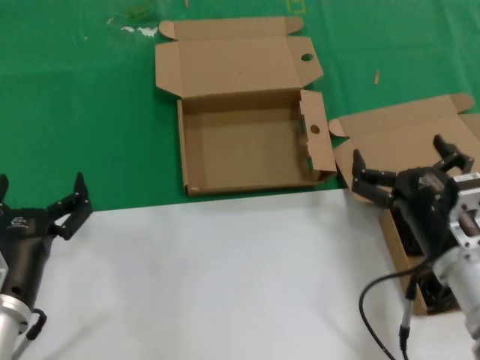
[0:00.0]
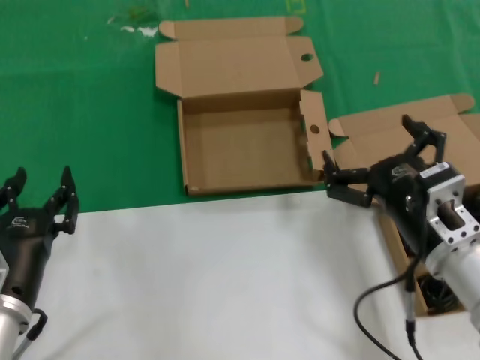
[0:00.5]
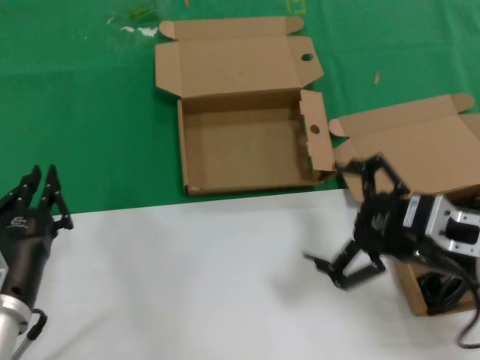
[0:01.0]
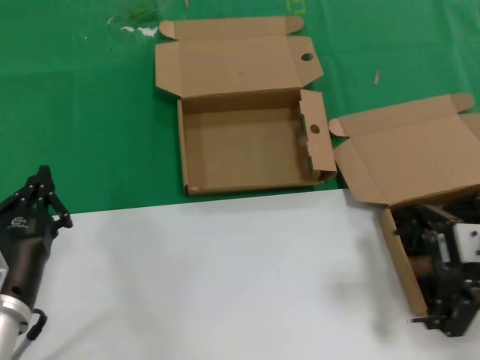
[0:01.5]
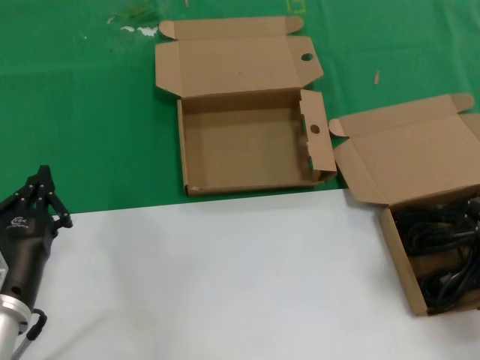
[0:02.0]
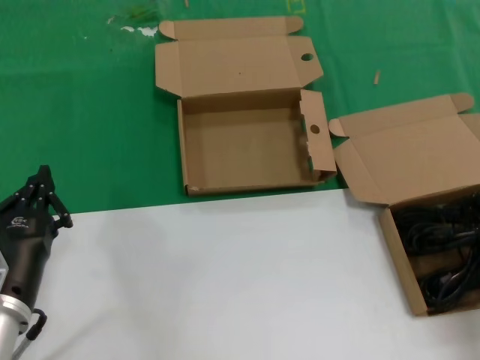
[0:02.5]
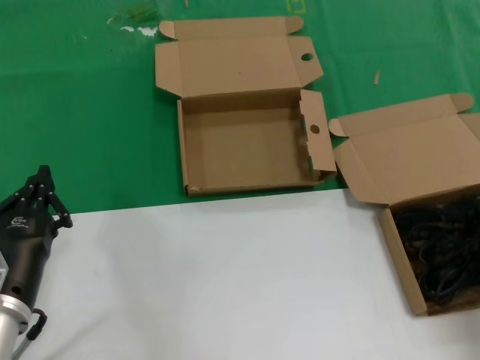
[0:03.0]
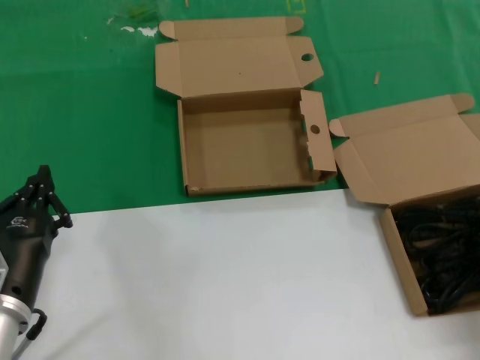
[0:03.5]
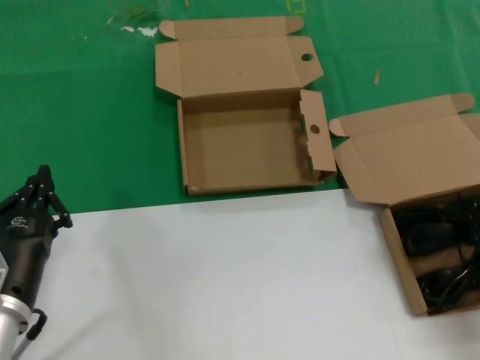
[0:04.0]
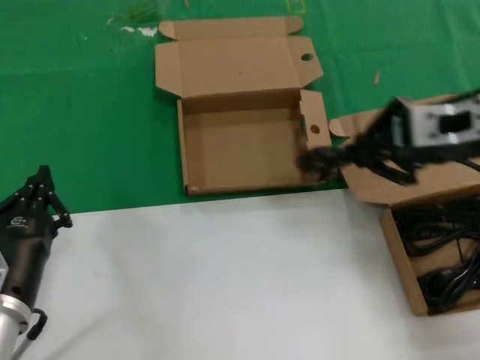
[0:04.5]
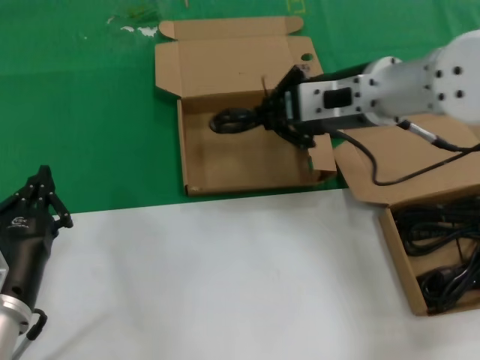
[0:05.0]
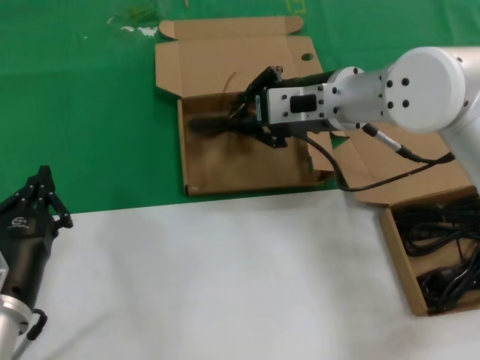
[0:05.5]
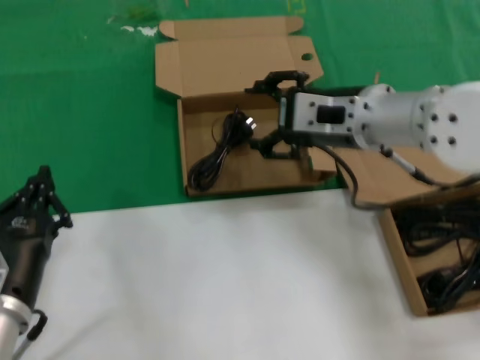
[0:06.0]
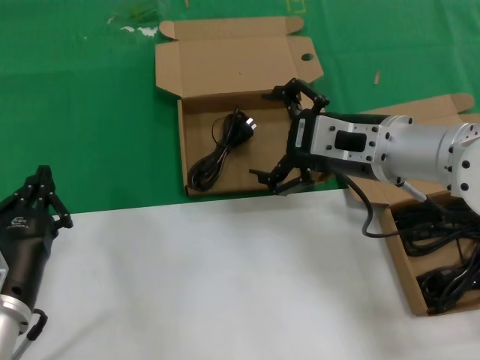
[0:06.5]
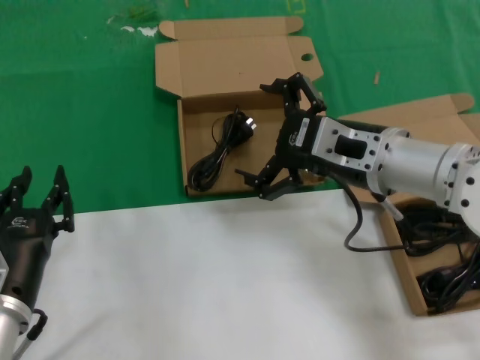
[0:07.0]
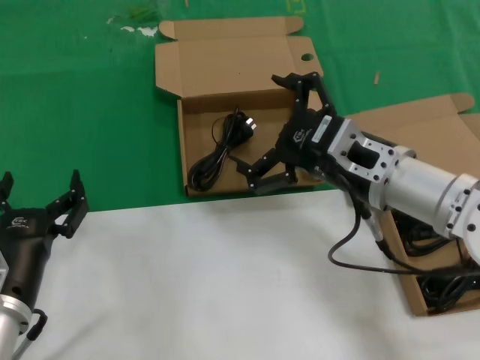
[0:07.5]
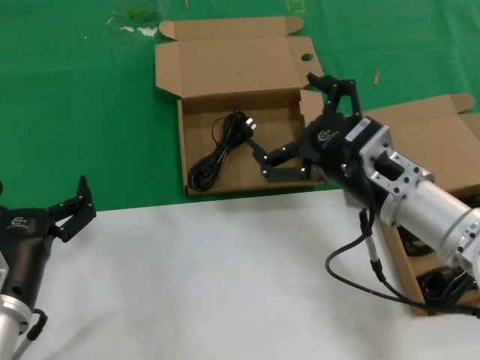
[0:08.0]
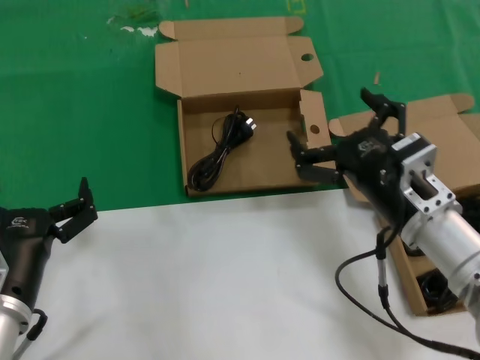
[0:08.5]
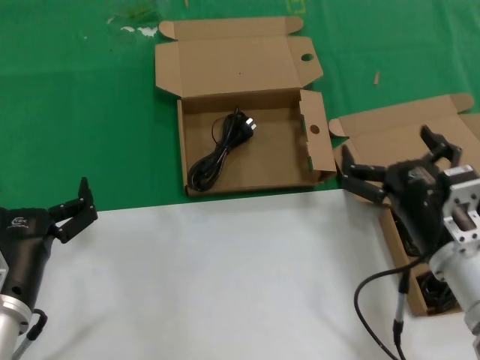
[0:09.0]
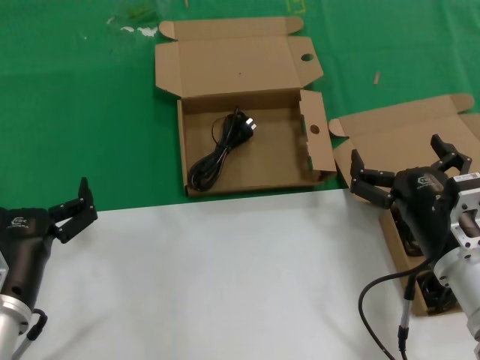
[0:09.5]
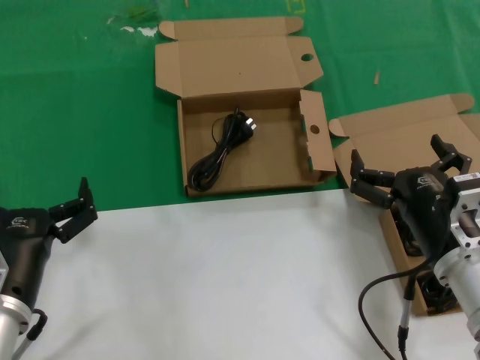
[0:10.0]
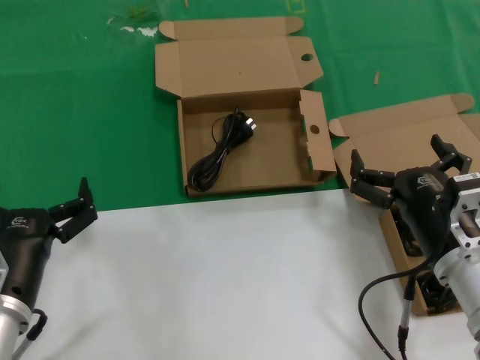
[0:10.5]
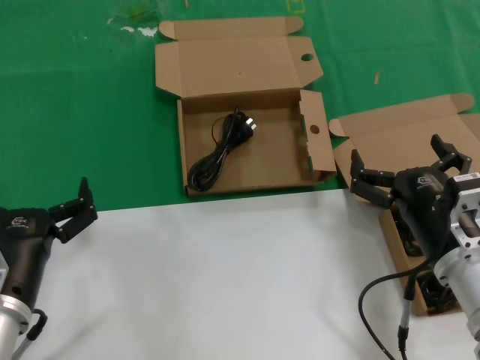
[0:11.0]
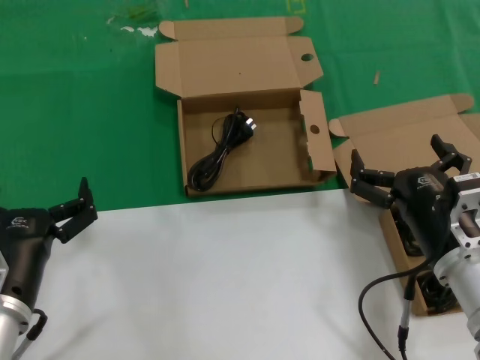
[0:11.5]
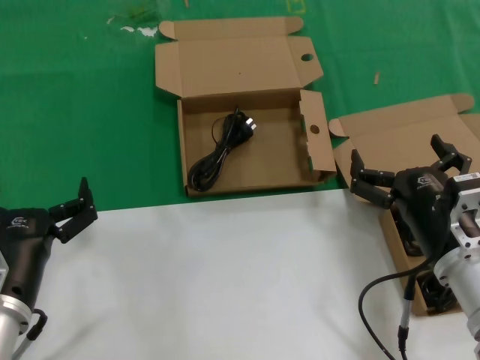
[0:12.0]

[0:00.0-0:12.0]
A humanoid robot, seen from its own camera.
Task of the whole recording: take the parts from the box containing them and put them into an empty box.
Step, 0:00.0 to 0:03.0: Grasp the data cable.
Step, 0:03.5 to 0:06.0: Place the data cable in the another box.
0:00.0 to 0:02.0: The right hand moves upward and to the right, roughly 20 cm.
0:04.0 to 0:06.0: The right hand moves to the left, about 20 cm.
0:06.0 to 0:08.0: The right hand is displaced downward and backward by roughly 10 cm.
0:08.0 to 0:10.0: The right hand shifts about 10 cm downward and backward.
0:10.0 to 0:12.0: Both hands stay about where they are.

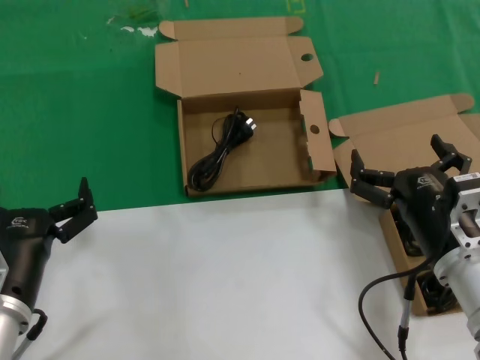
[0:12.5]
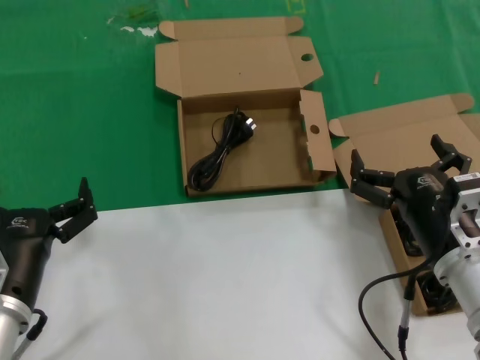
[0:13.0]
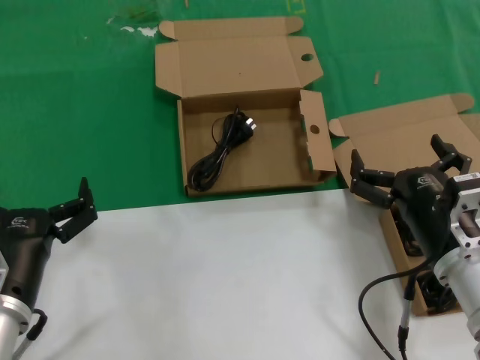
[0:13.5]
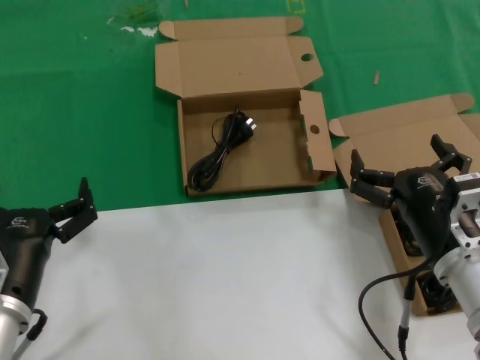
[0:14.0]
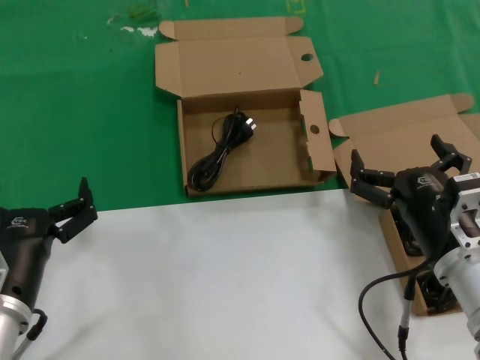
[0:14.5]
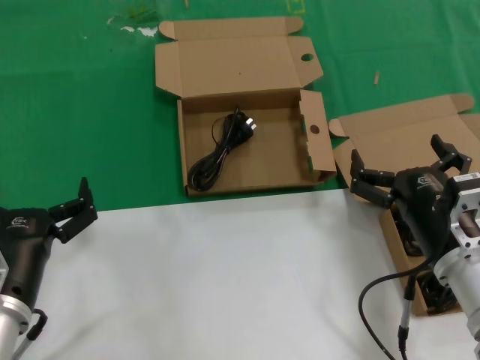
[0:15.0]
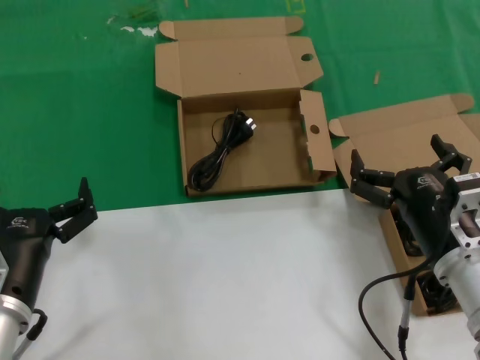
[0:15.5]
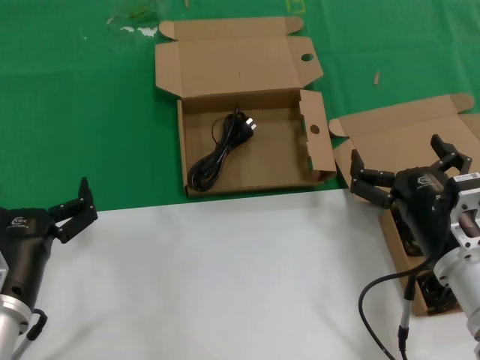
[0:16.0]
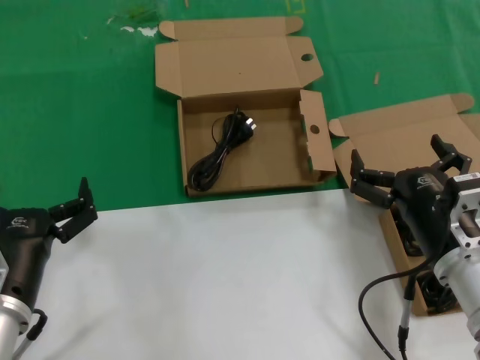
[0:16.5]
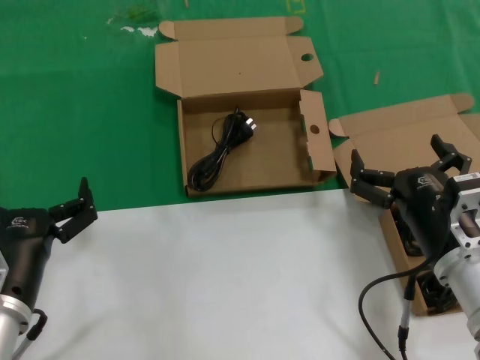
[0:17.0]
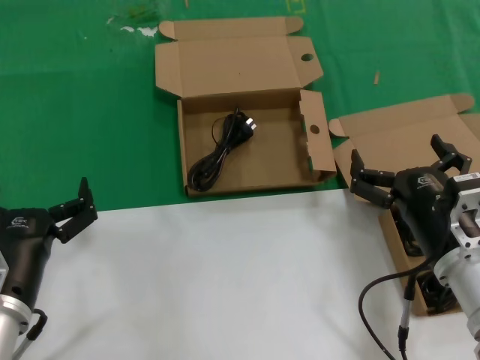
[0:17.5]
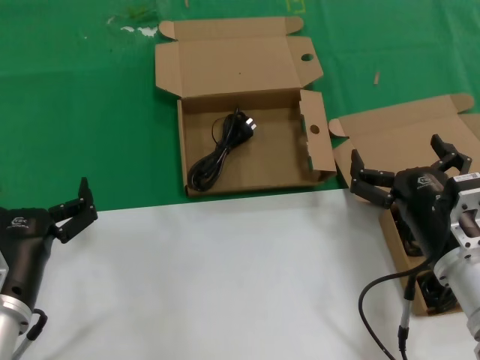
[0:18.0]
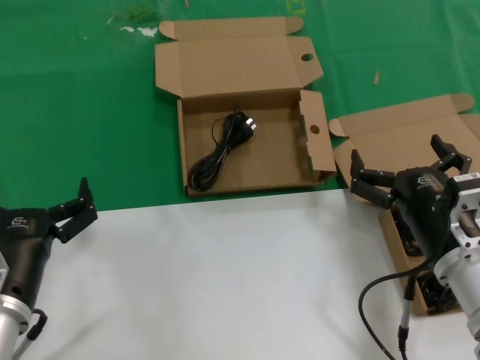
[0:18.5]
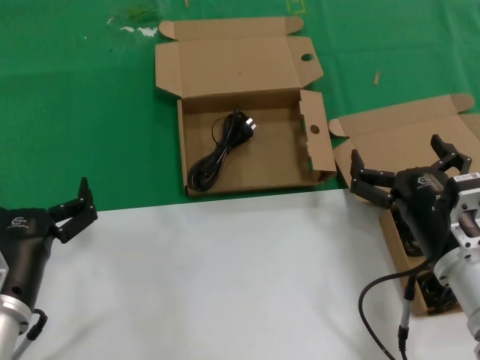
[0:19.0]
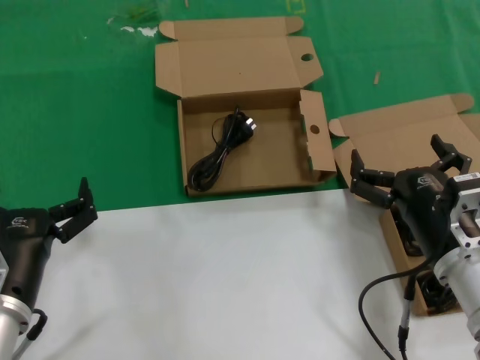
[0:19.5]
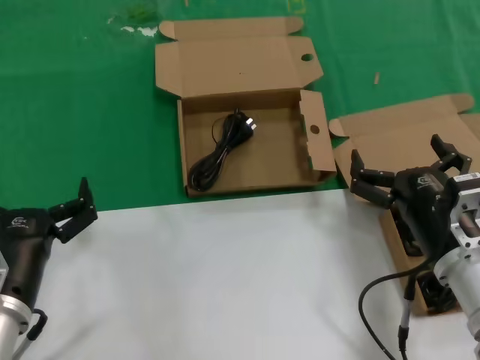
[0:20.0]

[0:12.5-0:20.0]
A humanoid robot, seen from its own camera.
Task of the whole recording: take the parts from the box containing them and put them into an empty box.
0:12.5 to 0:20.0: Neither hand changes place.

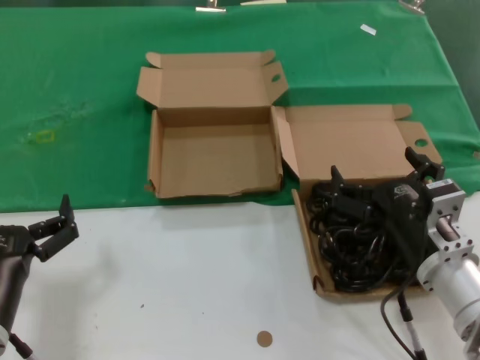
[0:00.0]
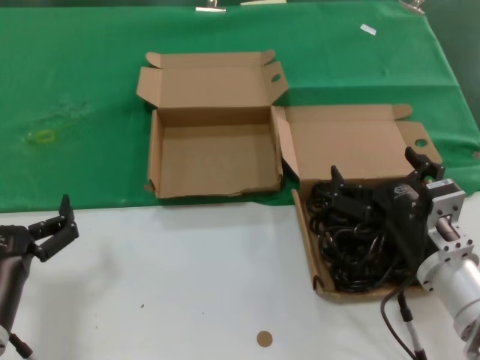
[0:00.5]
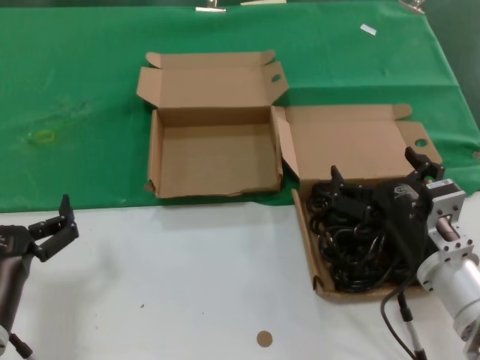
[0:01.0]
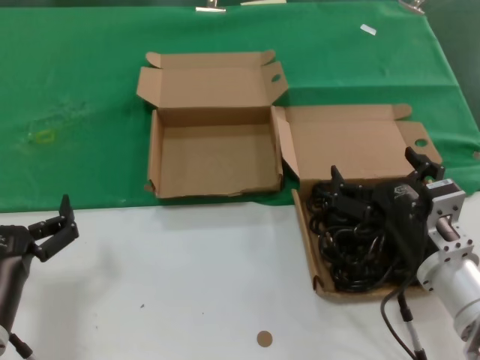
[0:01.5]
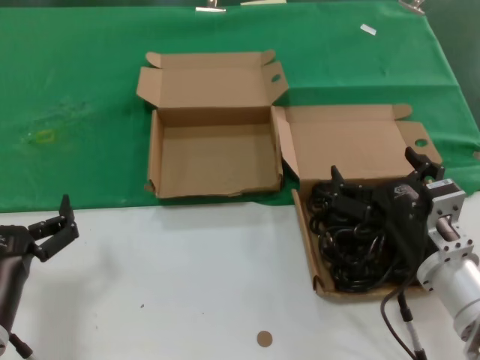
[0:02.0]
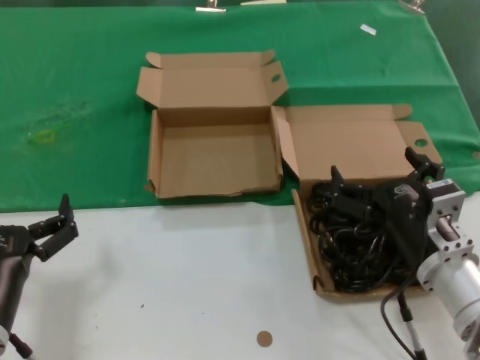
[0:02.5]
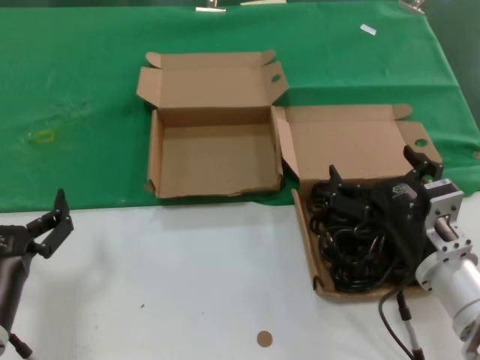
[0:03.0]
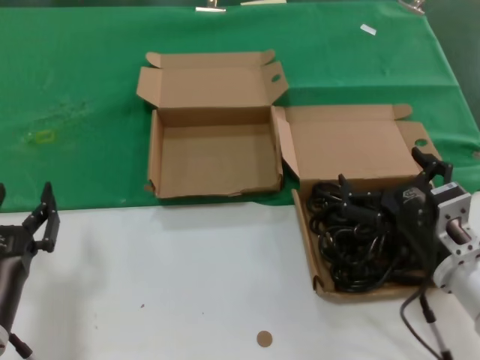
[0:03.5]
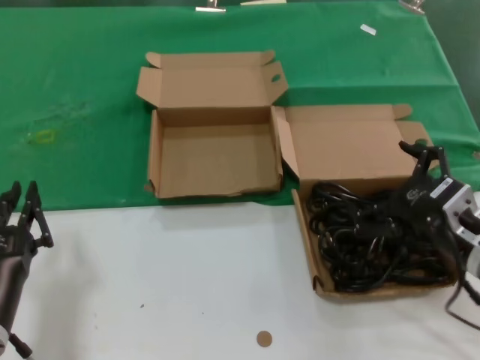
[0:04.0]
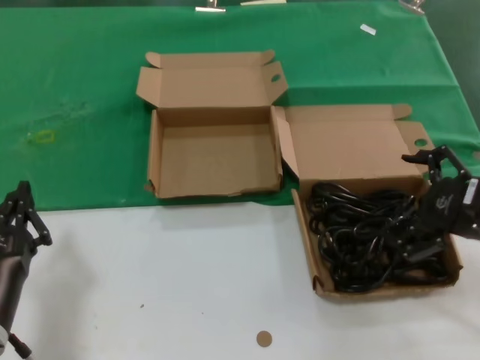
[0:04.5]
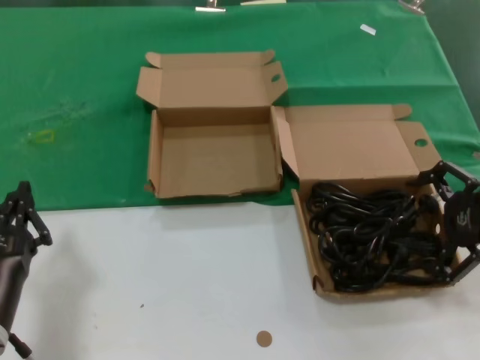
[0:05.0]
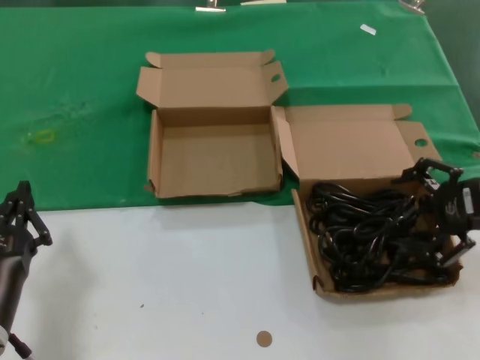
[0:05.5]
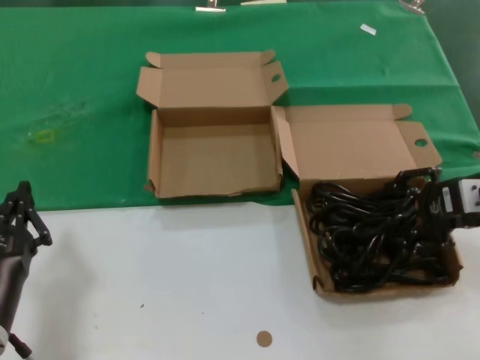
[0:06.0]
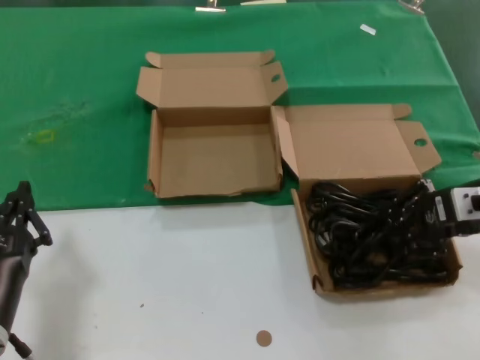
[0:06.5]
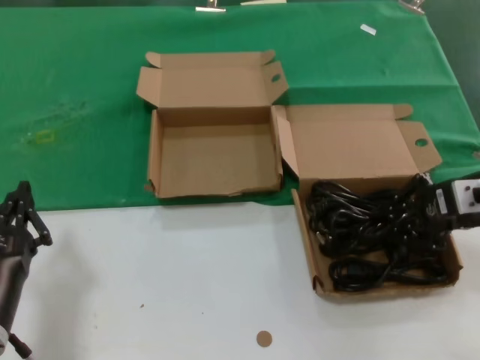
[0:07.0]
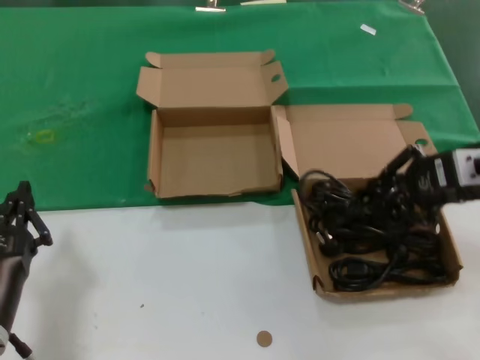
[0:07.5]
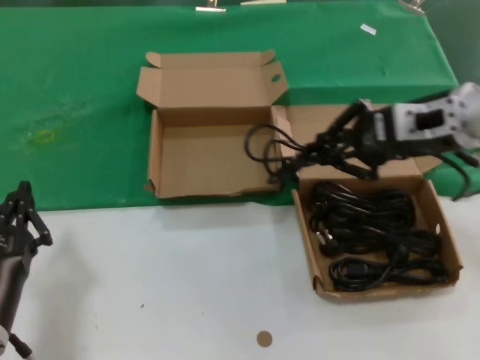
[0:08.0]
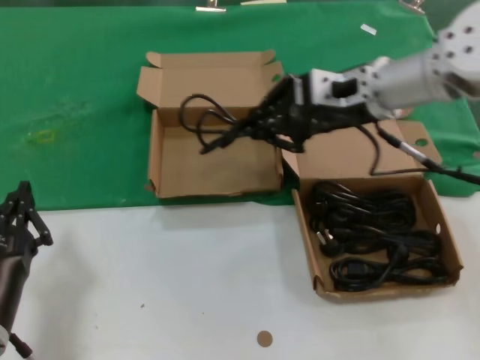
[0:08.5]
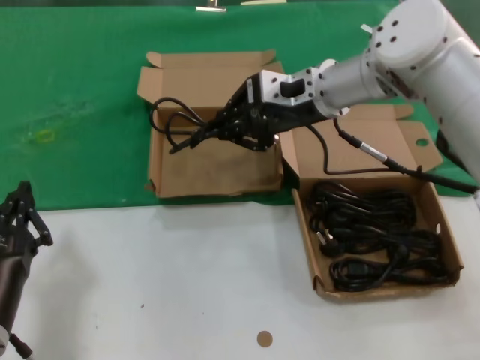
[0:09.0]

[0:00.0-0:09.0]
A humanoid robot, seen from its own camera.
Task of the whole recording: take the parts from the box containing them and put them into an empty box.
Step, 0:00.0 to 0:06.5: Grasp the data cable.
0:00.0 to 0:02.0: Both hands stay put.
0:02.0 to 0:04.5: The right hand travels to the right and upward by about 15 cm.
0:04.5 to 0:07.0: The right hand heads forward, covering some 10 cm.
0:07.0 to 0:09.0: The right hand moves to the left and forward, about 25 cm.
